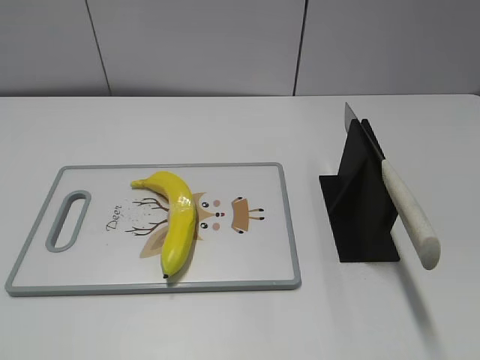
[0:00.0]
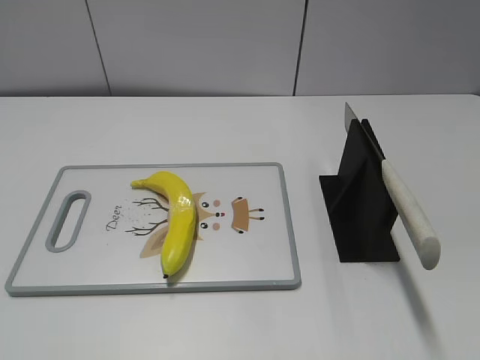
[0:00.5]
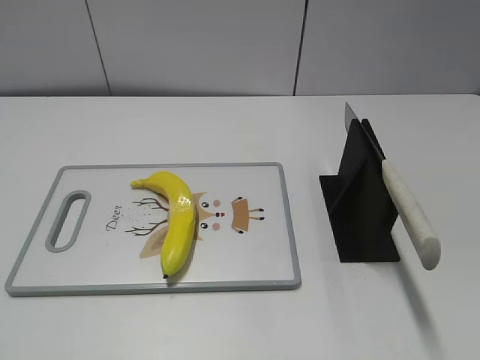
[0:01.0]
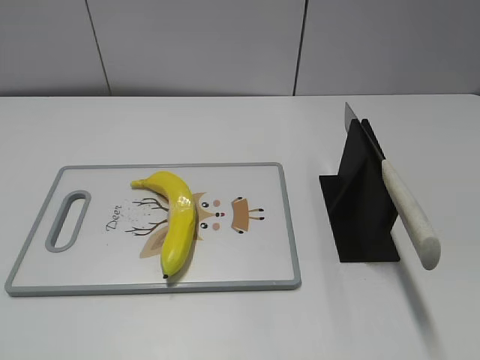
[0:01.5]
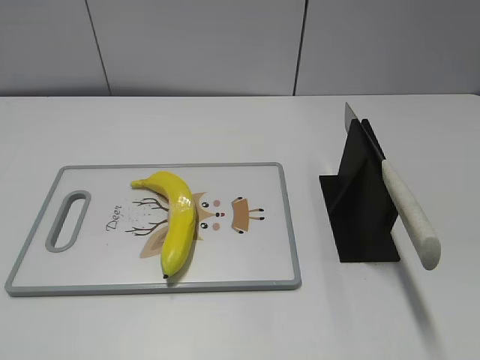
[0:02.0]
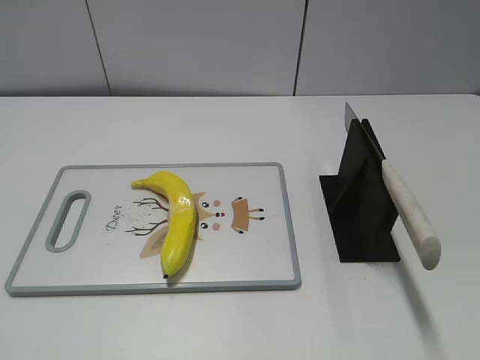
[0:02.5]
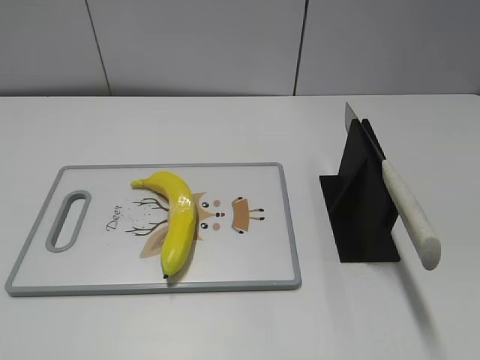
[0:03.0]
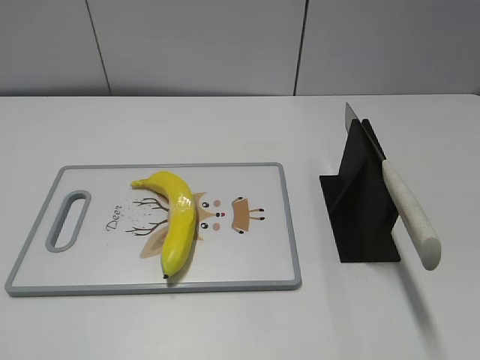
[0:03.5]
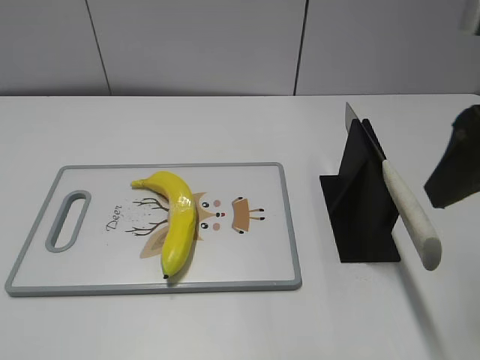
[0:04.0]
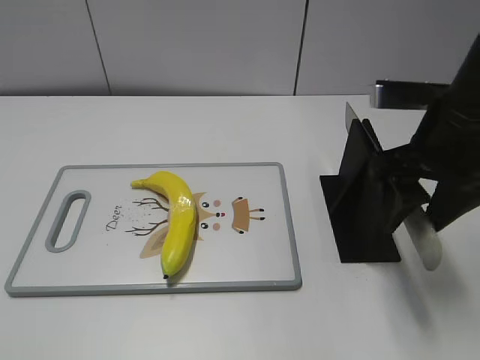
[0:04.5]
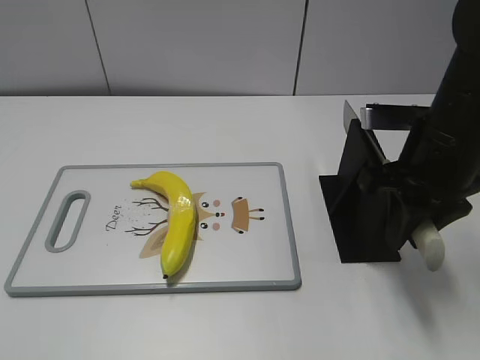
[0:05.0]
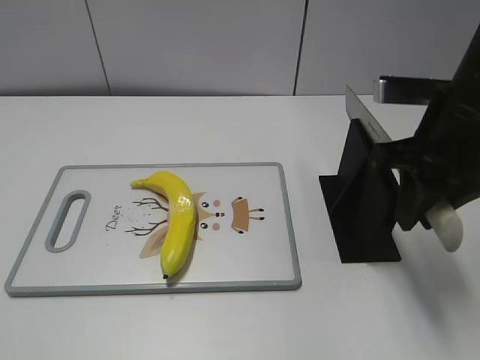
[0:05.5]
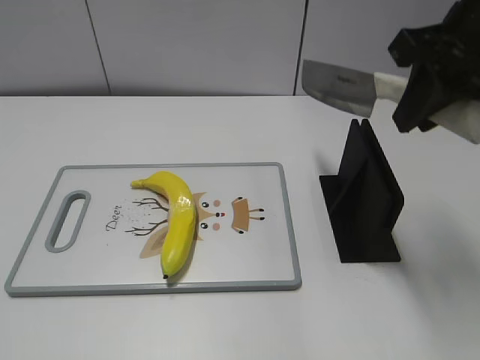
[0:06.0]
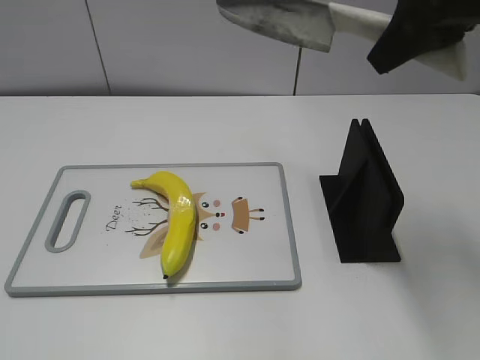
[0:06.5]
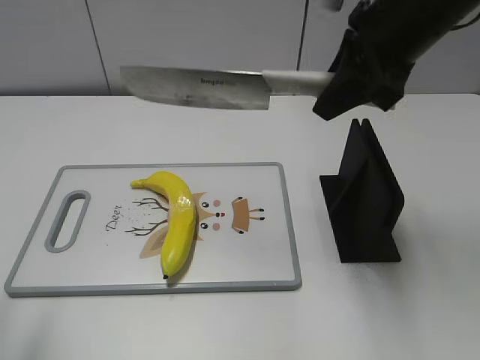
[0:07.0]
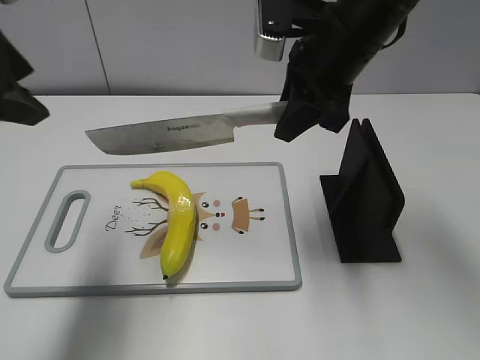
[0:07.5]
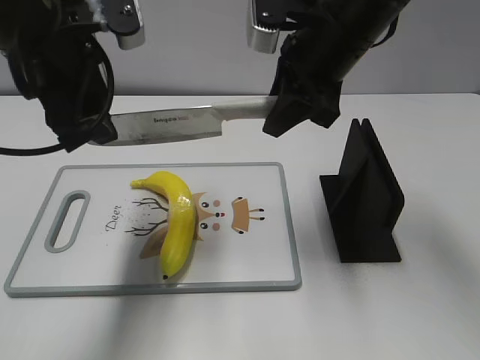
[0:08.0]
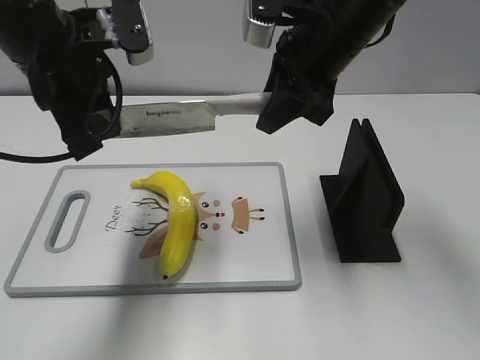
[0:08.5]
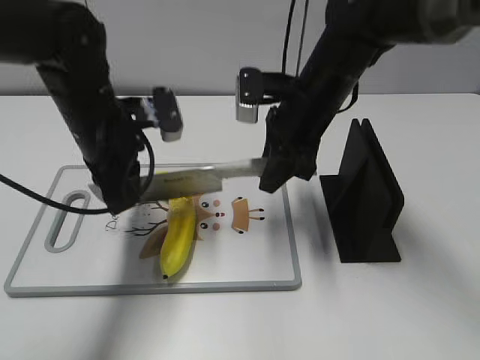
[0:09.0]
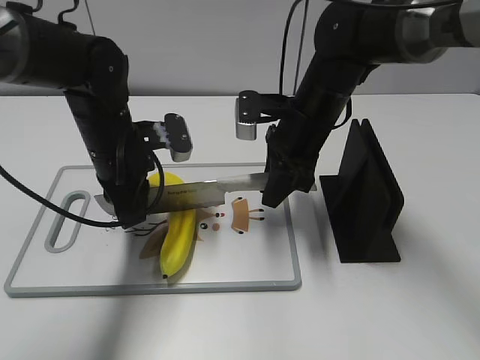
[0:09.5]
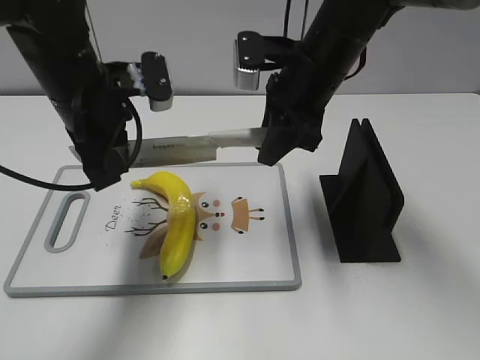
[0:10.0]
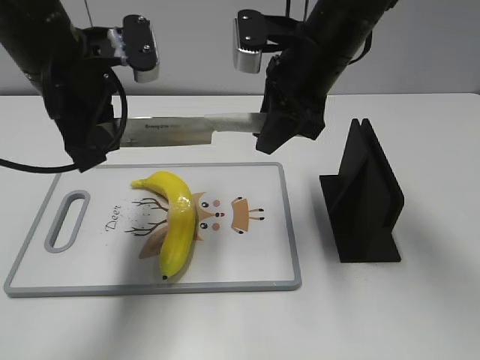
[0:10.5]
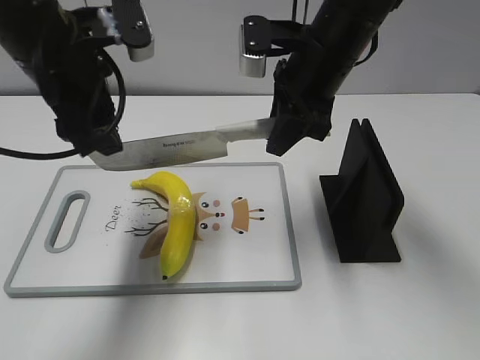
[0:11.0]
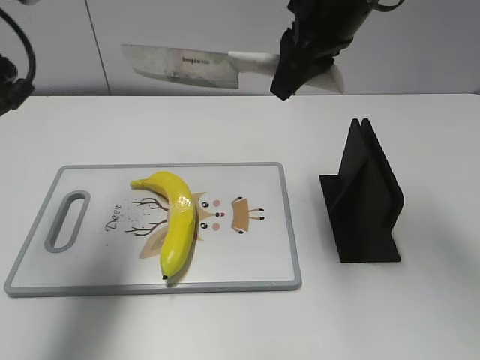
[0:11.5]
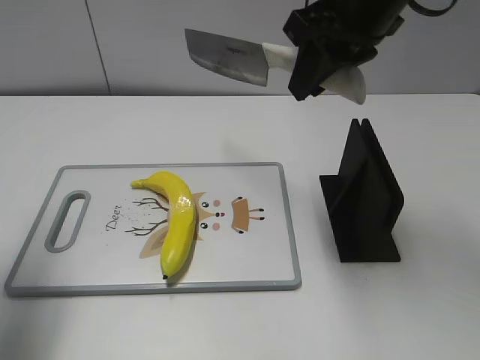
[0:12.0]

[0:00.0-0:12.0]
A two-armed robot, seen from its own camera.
Task of the whole recording: cut plastic banana.
Step, 0:00.0 to 0:06.0: Grab the knife handle with your right hand.
Step, 0:06.5 to 0:10.0: Lift the knife with your right hand.
Step, 0:10.5 to 0:11.5: Cut the banana with your right hand.
0:02.0 to 0:04.0: The right gripper shifts about 20 cm forward and to the left.
0:04.0 to 0:06.0: The right gripper travels forward by roughly 5 cm, travels downward and back again, some 10 cm each way, and closes up.
0:06.0 to 0:08.0: The left gripper moves forward and to the right, some 35 cm. Meanwhile the right gripper moves to the left, forward and downward, roughly 15 cm.
0:08.0 to 0:10.0: The grippers both shift downward by some 5 cm. The left gripper closes up.
0:10.0 to 0:12.0: The right gripper travels upward by some 10 cm. Meanwhile the left gripper is displaced to the left, upward and backward by approximately 20 cm, and opens up.

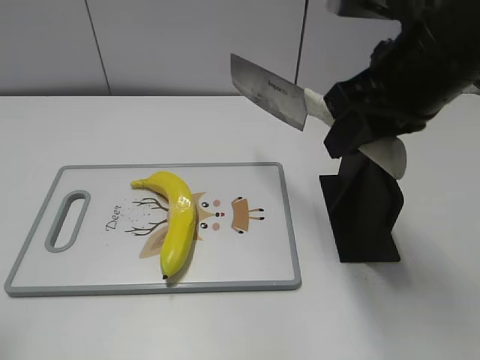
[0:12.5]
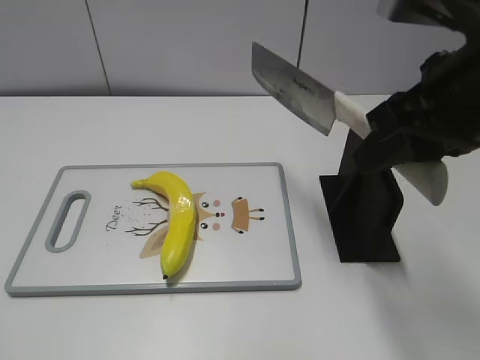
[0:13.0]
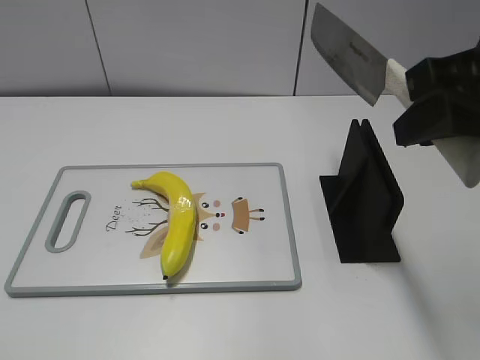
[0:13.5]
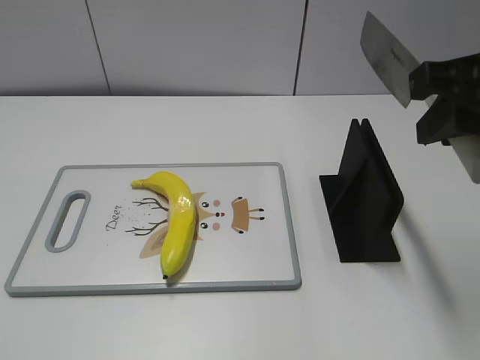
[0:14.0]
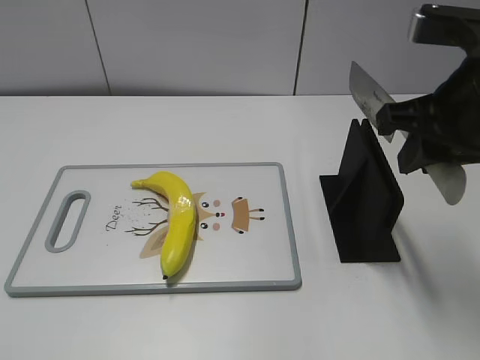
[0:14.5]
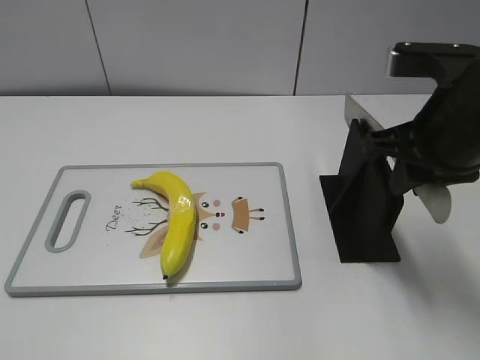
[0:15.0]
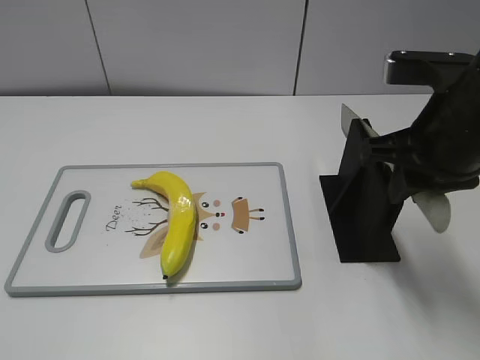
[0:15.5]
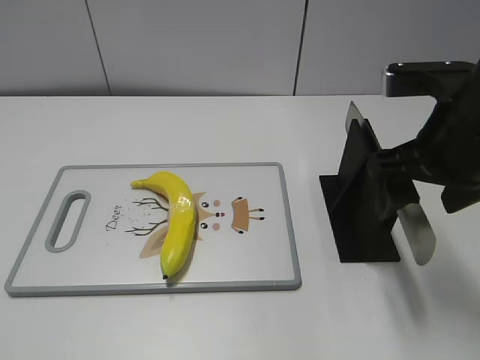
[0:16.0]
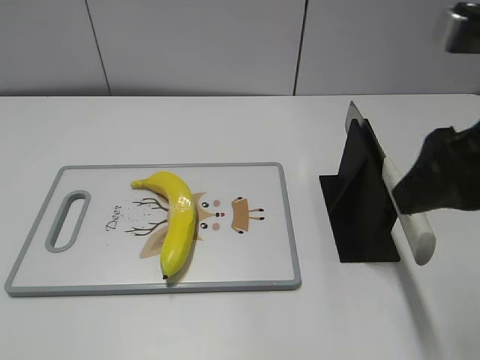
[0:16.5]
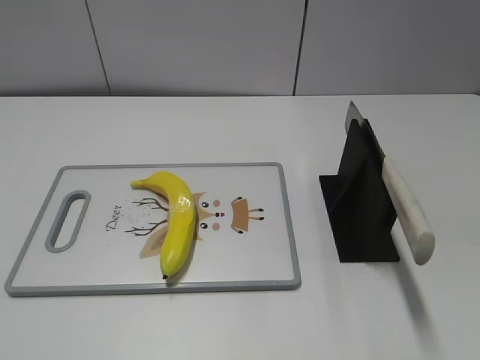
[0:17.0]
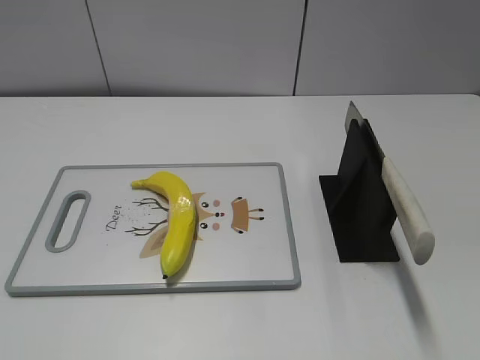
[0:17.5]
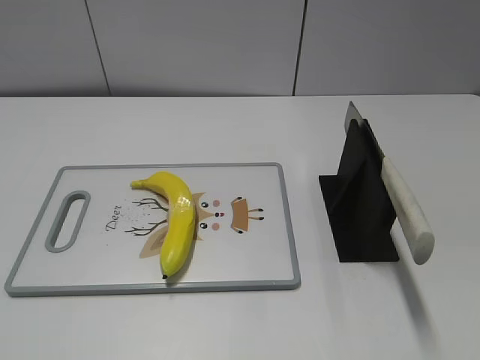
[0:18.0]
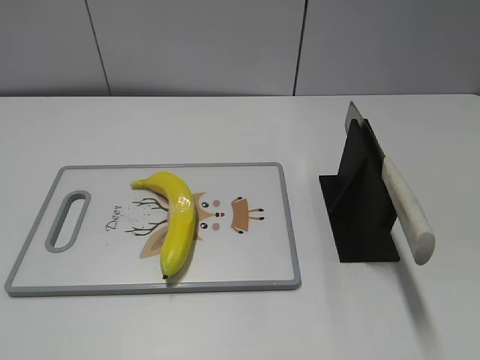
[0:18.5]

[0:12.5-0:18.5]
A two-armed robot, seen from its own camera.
Task of the whole recording: cut plastic banana.
Step, 0:13.0 to 0:18.5: Place the knife on the storage rack with your right hand.
0:12.5 to 0:14.5: The left gripper heads backward, covering roughly 10 cm.
0:14.5 to 0:16.5: The right gripper goes some 5 cm backward, and opens up.
0:16.5 to 0:18.5: The right gripper goes roughly 20 cm backward and to the right.
